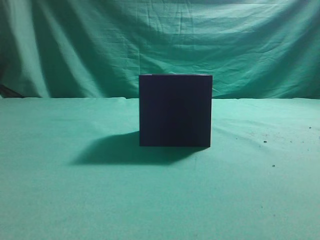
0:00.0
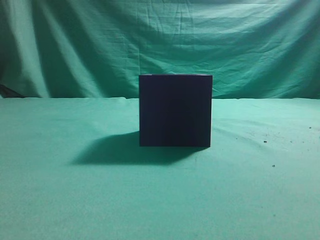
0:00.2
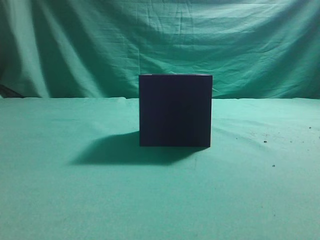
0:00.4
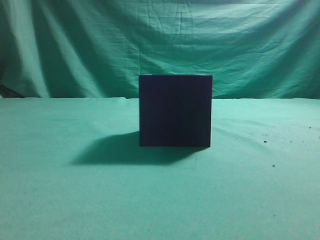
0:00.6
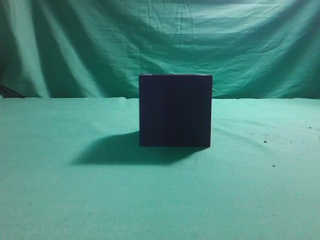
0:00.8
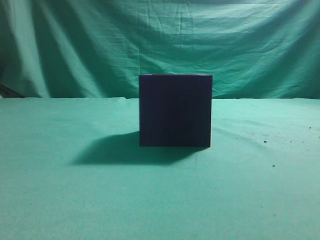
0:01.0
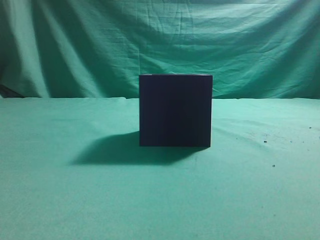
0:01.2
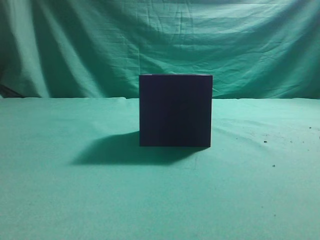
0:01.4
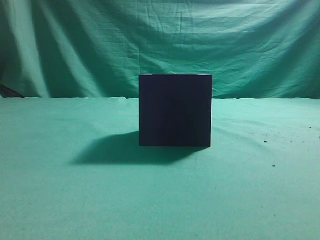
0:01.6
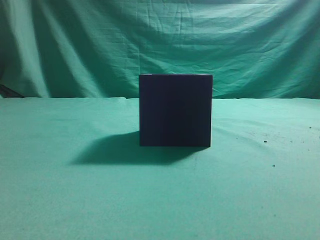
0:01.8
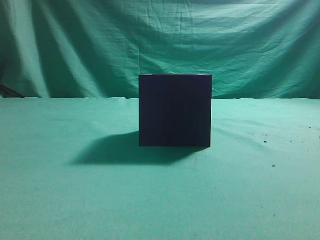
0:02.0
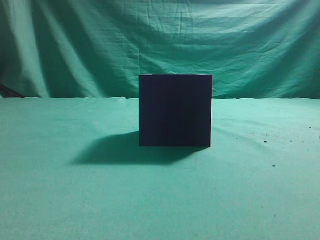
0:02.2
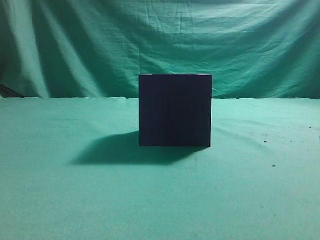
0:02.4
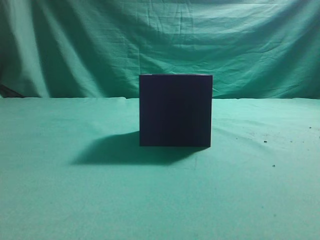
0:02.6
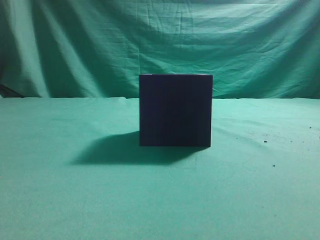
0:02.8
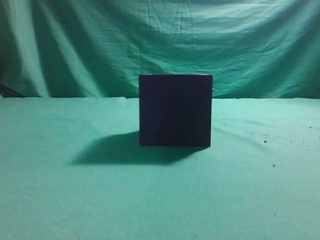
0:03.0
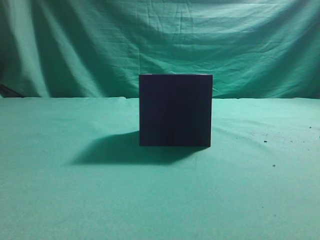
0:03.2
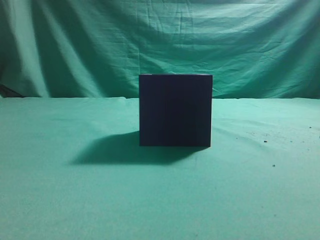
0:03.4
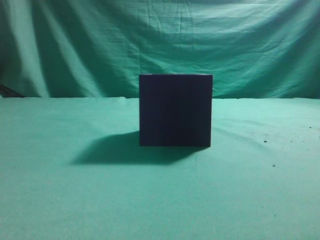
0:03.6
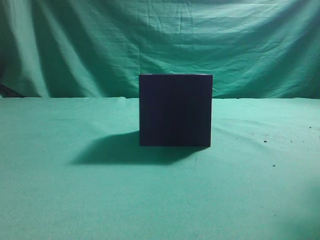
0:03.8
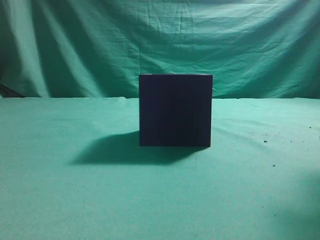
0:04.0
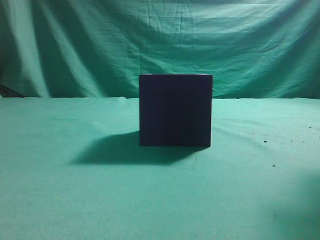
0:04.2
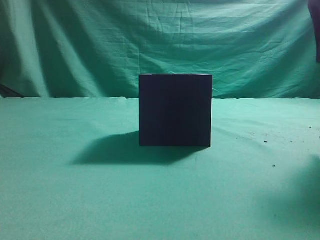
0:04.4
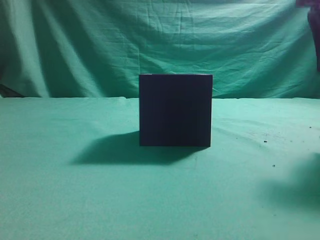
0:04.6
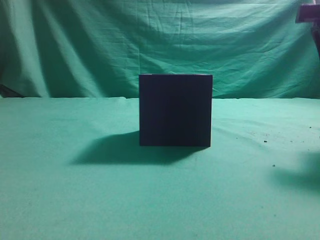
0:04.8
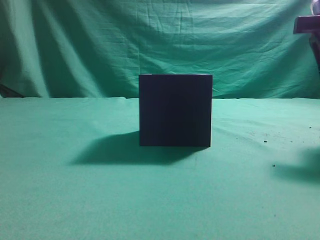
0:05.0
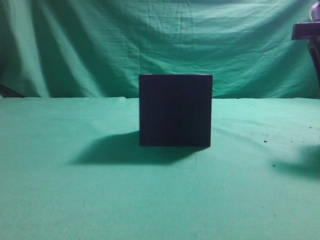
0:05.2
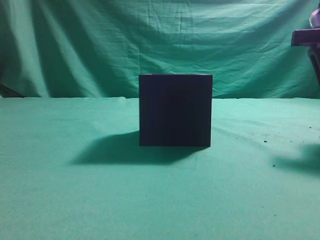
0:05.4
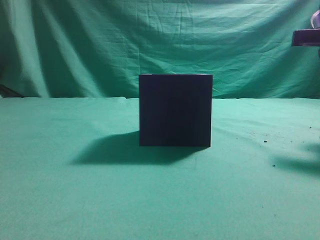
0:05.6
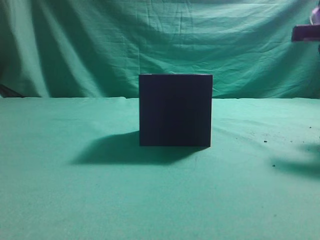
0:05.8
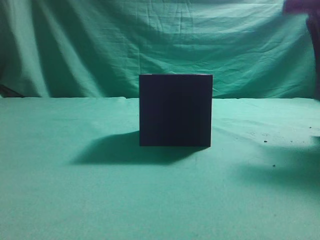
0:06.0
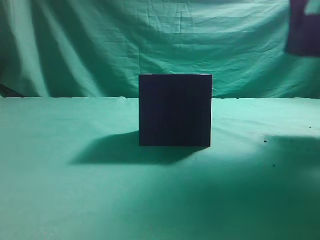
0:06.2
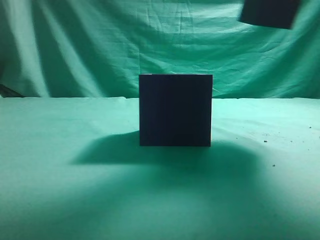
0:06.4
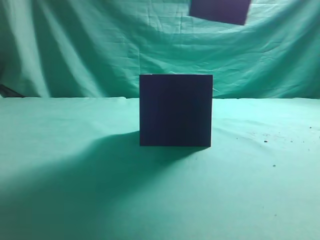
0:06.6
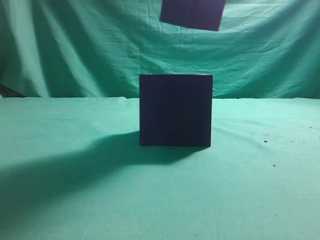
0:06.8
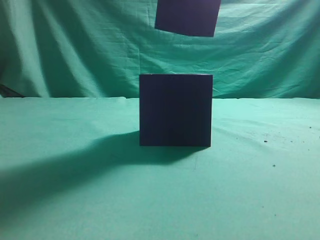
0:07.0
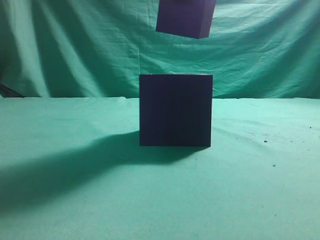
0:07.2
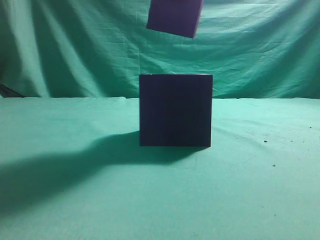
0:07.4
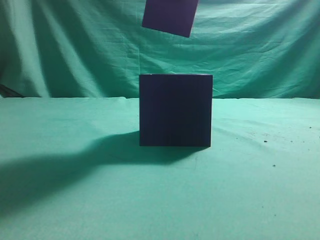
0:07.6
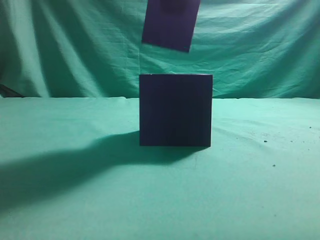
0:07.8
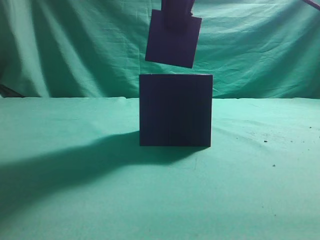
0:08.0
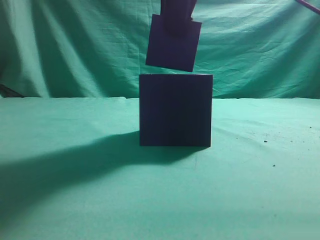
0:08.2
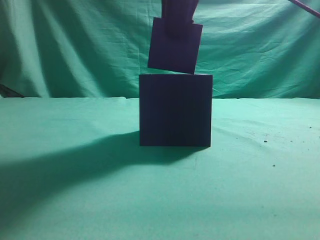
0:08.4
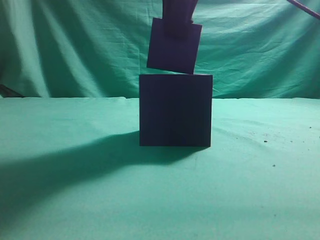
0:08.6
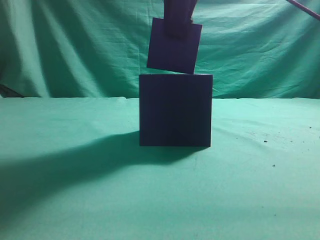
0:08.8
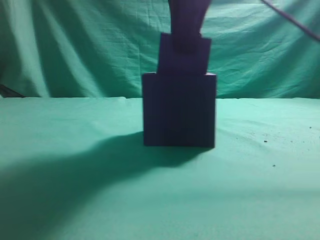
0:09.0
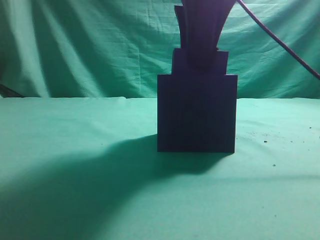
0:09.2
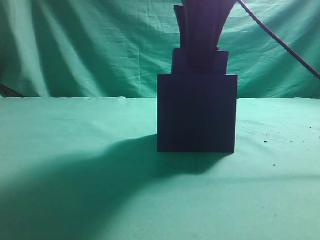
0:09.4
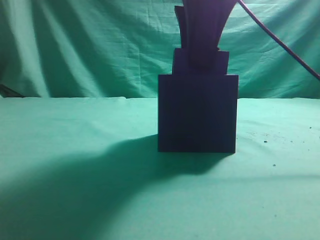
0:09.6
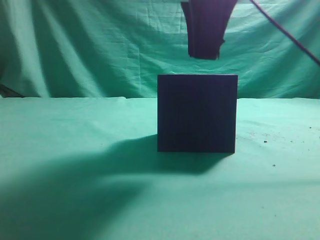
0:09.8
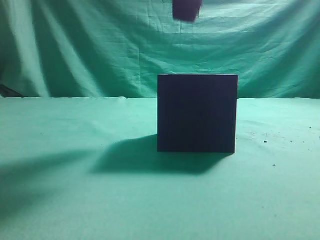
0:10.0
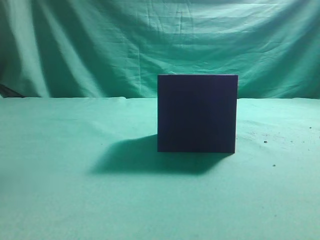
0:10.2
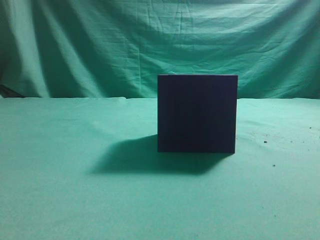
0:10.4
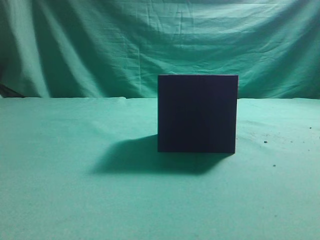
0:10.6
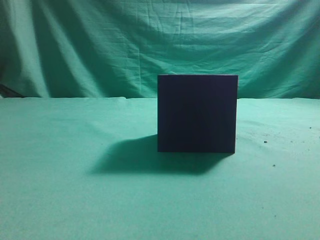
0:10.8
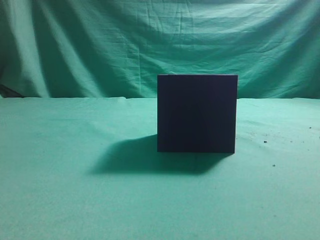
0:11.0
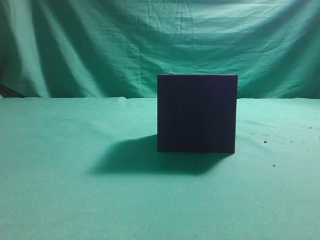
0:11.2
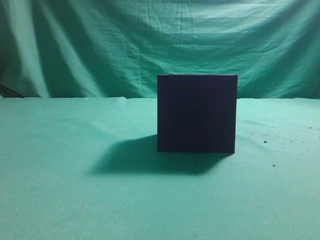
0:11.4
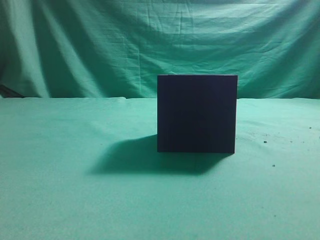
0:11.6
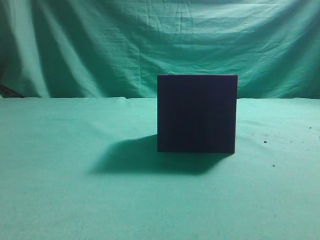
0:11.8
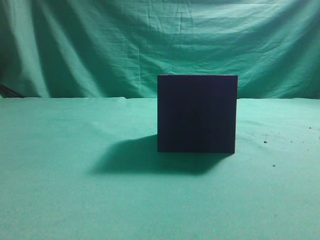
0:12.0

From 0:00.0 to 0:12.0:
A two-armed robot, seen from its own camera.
Task of the whole recording: pick up the cube block and place it into the cube groove.
Step, from 0:00.0 to 0:06.0: Grasp the cube.
Step, from 0:06.2 to 0:09.8: Place cube into the cube-shaped recess.
From 0:03.0 to 0:04.4: The right gripper is displaced forward by roughly 5 cm, and opens up.
From 0:04.4 to 0:06.0: There are only small adjustments of the grippers.
From 0:06.0 to 0:07.6: The right gripper moves to the left and upward, about 20 cm.
From 0:07.6 to 0:09.0: The right gripper is displaced downward by about 5 cm.
From 0:09.0 to 0:10.4: The right gripper travels upward by some 10 cm, and closes.

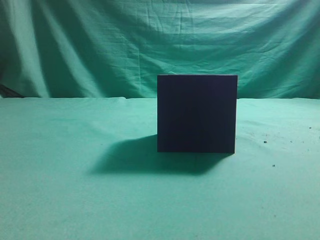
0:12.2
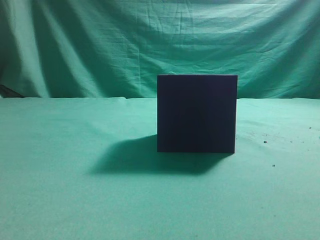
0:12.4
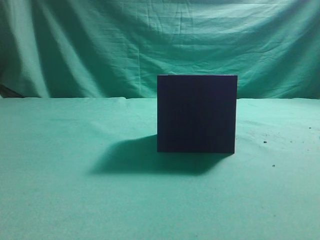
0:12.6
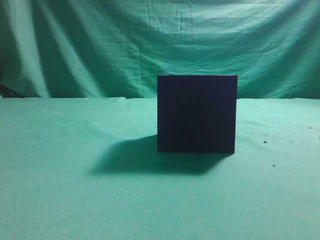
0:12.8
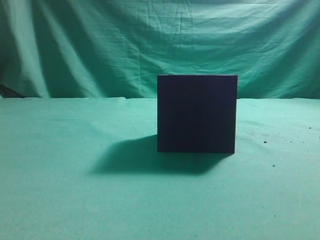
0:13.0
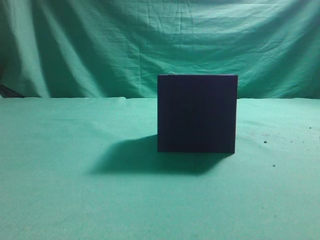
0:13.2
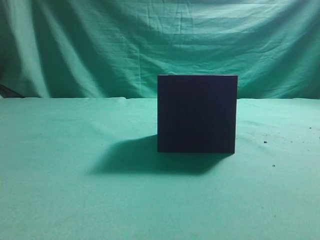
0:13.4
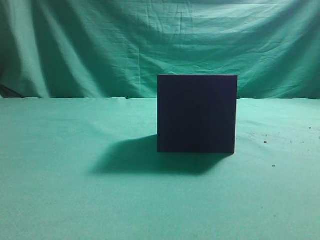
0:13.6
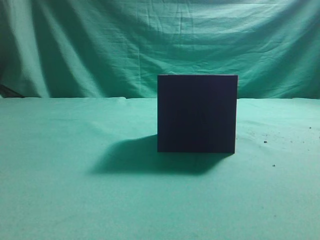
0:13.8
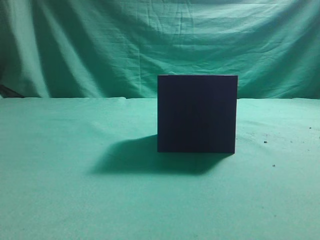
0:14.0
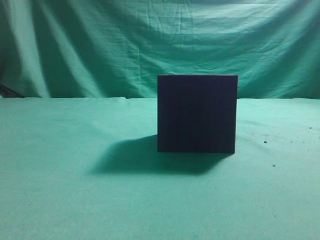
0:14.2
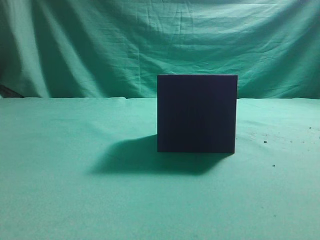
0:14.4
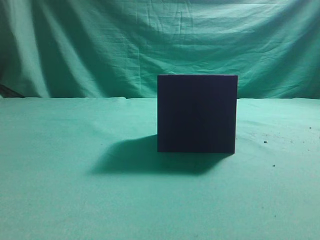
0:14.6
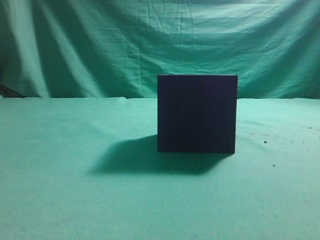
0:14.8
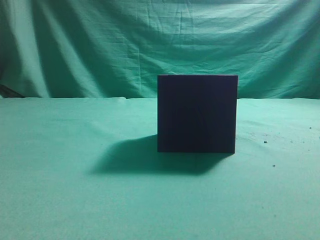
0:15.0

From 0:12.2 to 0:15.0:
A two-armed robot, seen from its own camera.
Task of the whole recording: pick up the cube block and place it into the cube groove.
From 0:13.6 to 0:15.0: Neither gripper changes place.
